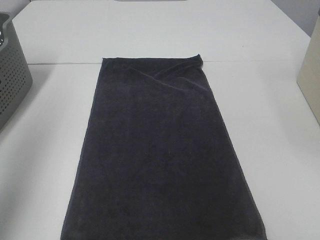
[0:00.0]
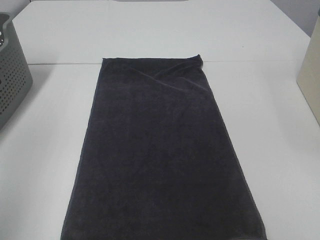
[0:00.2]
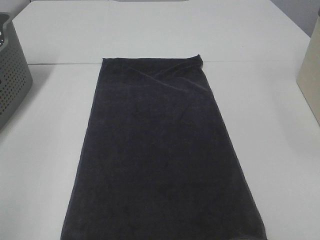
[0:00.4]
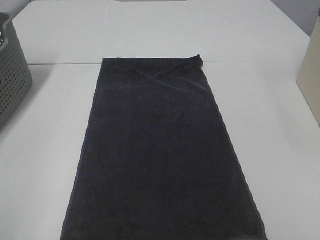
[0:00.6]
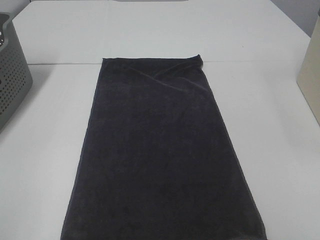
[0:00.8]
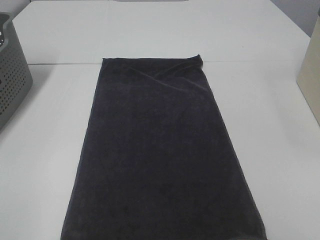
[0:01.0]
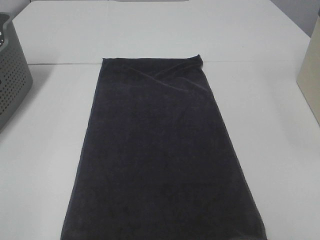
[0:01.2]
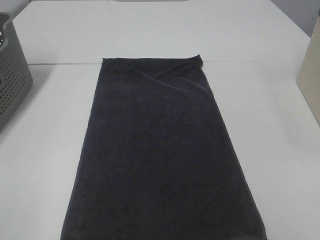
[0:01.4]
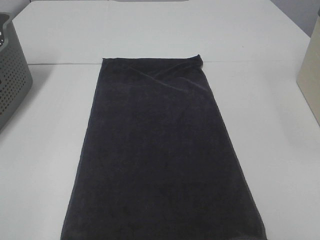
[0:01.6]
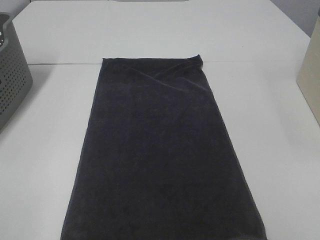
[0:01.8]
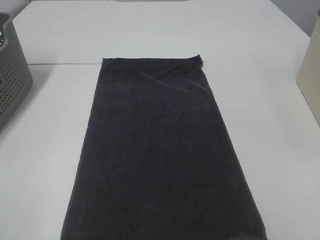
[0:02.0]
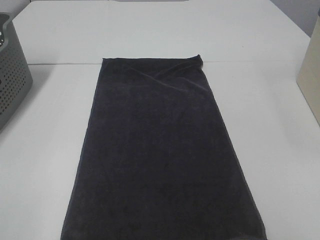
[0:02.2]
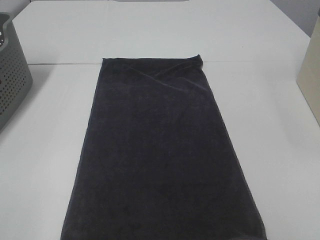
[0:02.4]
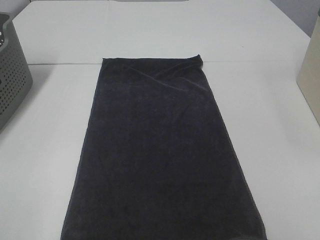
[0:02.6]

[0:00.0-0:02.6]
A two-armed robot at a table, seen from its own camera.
Task of the whole recording: Remove the towel and place it.
0:00.0 to 0:01.2: The left gripper goes approximately 20 cm backward and downward.
0:01.2 to 0:02.6: The two grippers keep their place.

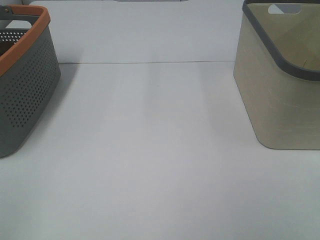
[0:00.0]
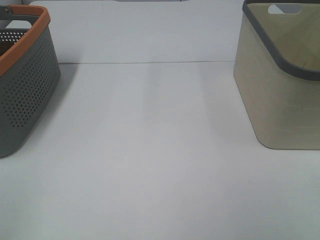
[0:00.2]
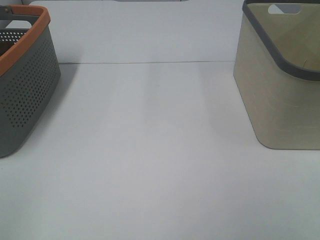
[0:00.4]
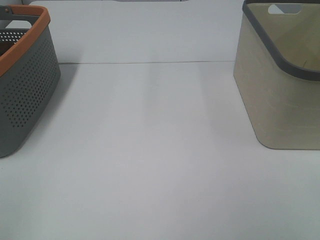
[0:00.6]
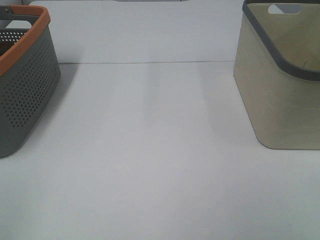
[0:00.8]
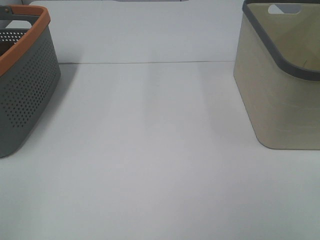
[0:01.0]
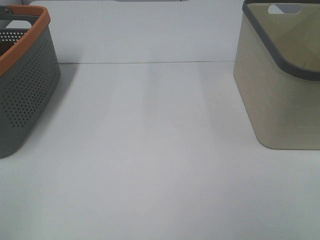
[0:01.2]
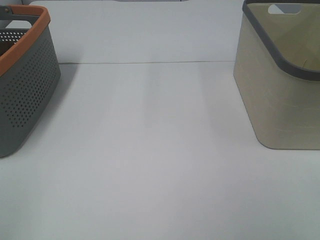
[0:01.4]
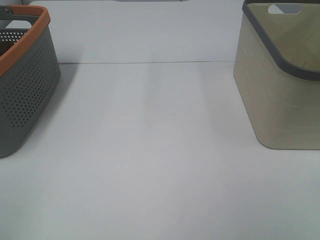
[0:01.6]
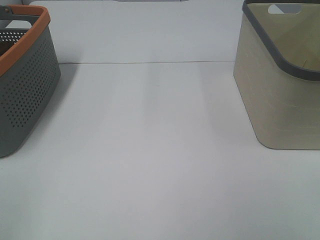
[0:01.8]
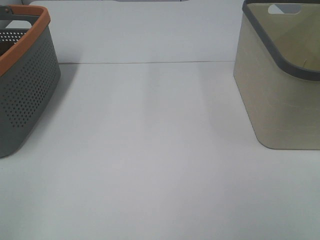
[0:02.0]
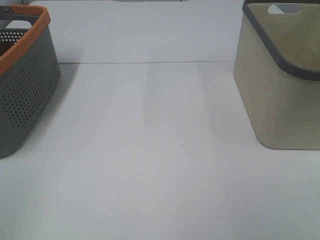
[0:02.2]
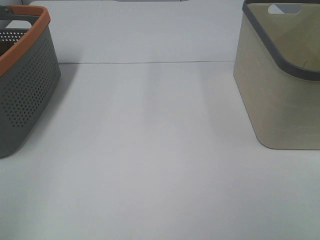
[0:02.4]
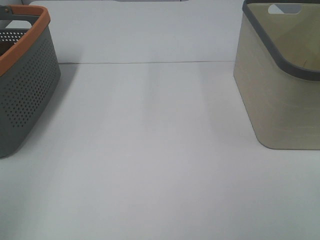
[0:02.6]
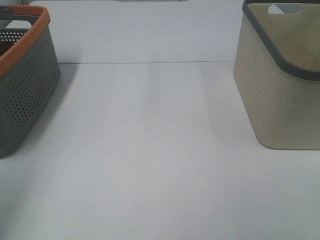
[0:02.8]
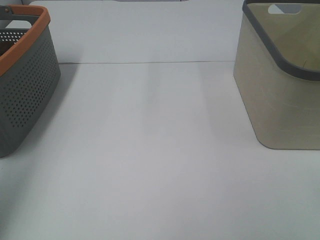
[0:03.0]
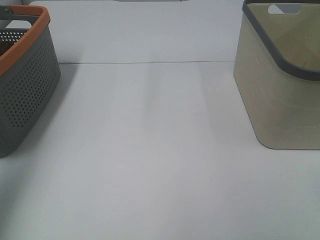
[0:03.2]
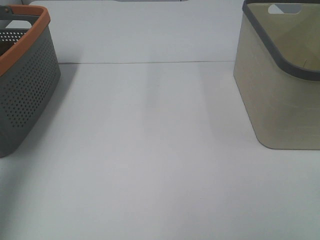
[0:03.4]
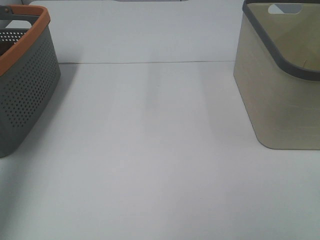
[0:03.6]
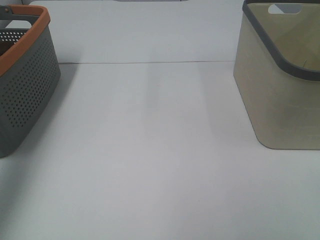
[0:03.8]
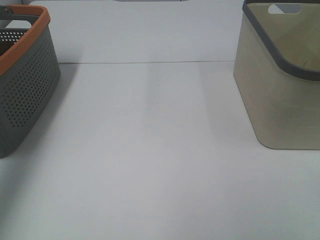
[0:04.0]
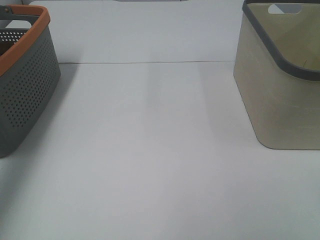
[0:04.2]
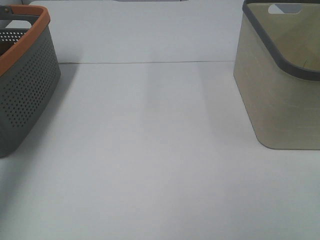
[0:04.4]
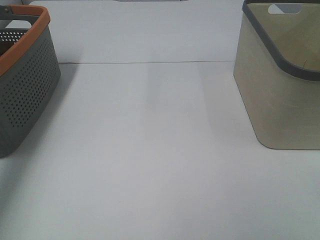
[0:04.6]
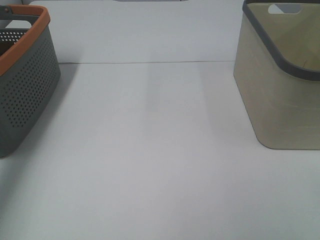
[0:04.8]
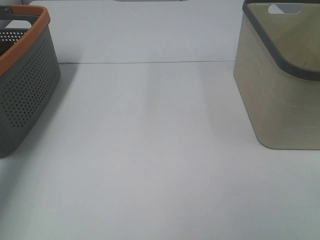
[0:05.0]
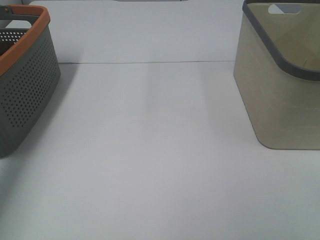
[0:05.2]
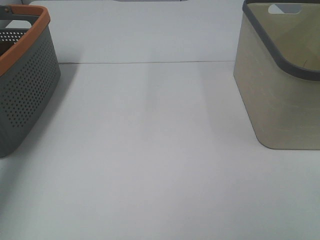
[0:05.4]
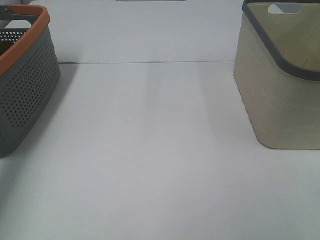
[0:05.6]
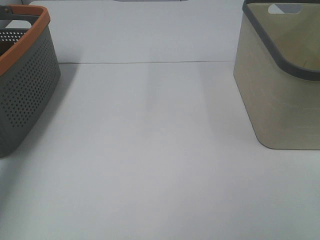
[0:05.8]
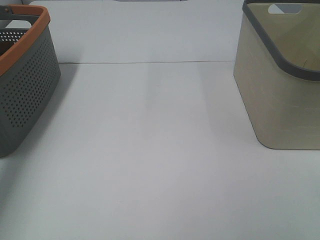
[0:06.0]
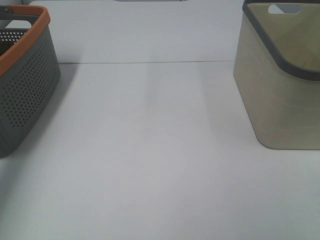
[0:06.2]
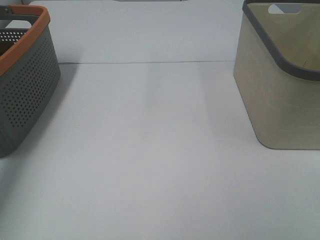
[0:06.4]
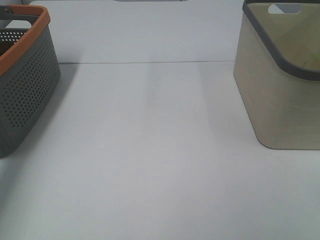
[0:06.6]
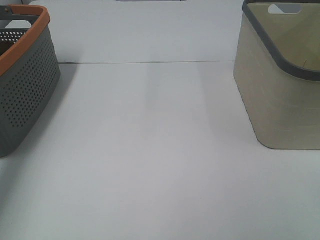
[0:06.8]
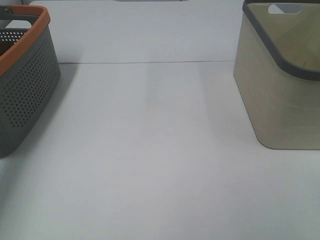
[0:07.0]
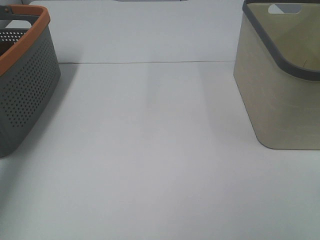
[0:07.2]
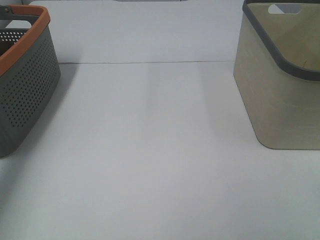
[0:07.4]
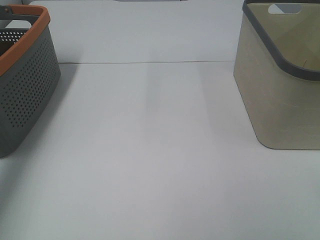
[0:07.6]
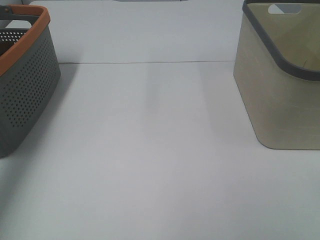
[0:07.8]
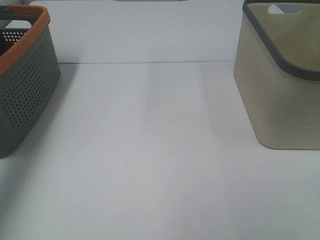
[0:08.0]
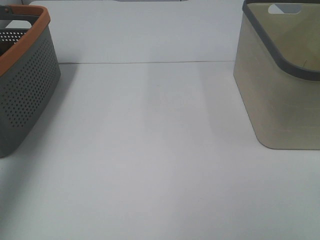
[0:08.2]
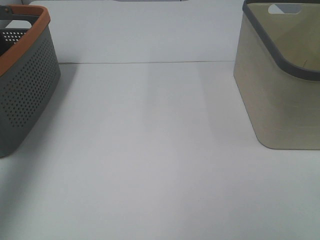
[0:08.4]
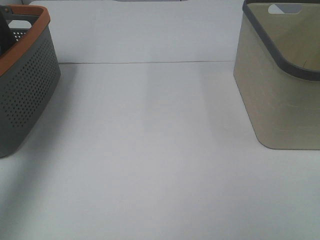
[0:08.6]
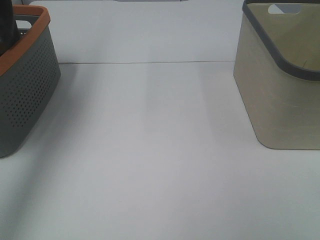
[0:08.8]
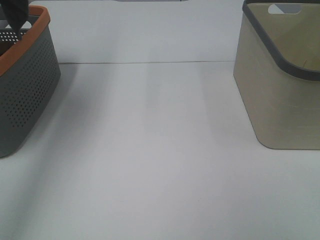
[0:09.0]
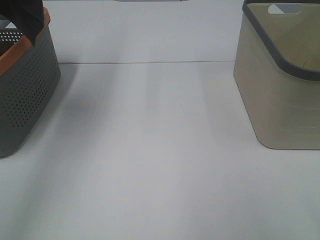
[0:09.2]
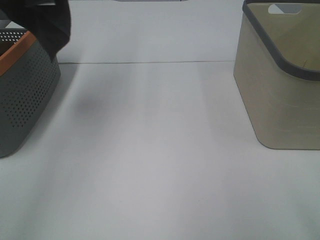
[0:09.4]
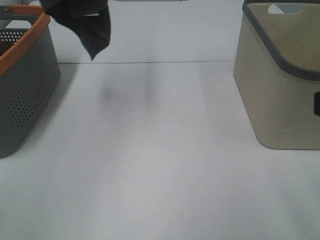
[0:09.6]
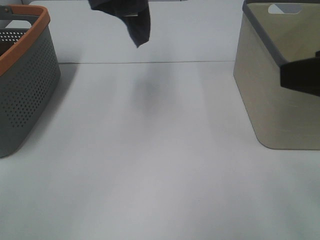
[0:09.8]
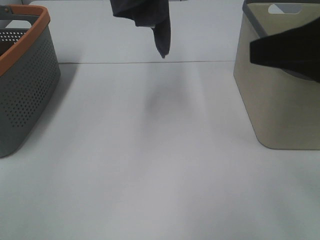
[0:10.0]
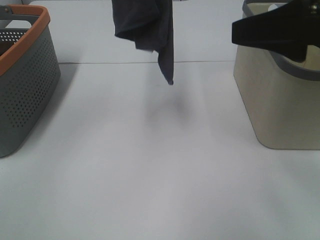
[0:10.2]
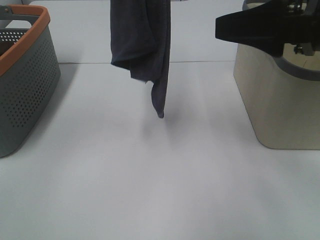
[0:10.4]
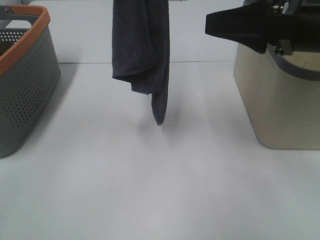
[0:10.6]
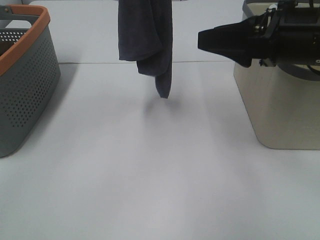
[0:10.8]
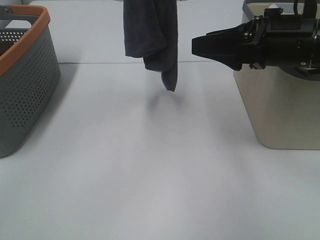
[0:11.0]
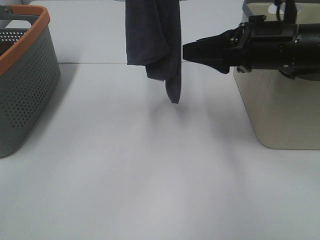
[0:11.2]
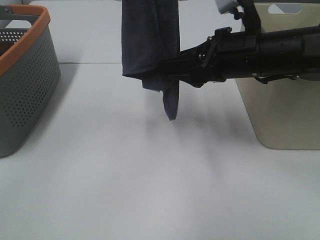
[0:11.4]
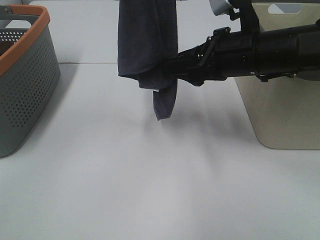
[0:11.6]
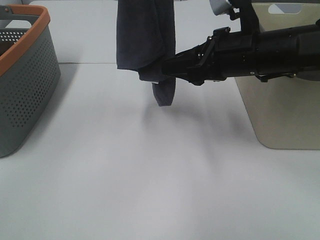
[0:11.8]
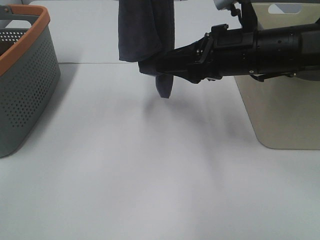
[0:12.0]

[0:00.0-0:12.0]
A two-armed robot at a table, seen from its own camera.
Task of the whole recording: Remove the towel and place it.
0:00.0 to 0:01.6: Neither gripper changes place.
0:01.6 to 0:03.0: The left gripper shifts approximately 20 cm forward and upward.
0:07.6 to 0:09.0: The left gripper moves upward and backward, about 30 cm.
0:09.0 to 0:10.4: The right gripper is displaced forward and to the left by approximately 20 cm. Meanwhile the left gripper goes some 20 cm to the right and downward.
0:10.4 to 0:12.0: The right gripper moves downward, forward and to the left, approximately 15 cm.

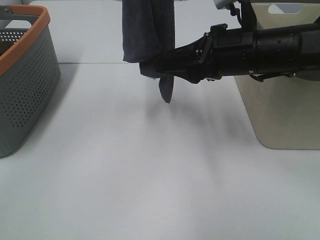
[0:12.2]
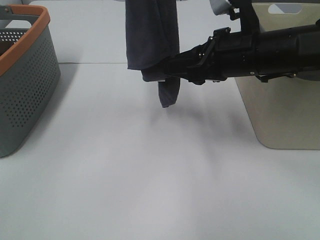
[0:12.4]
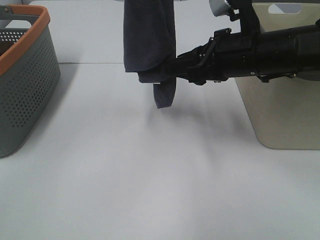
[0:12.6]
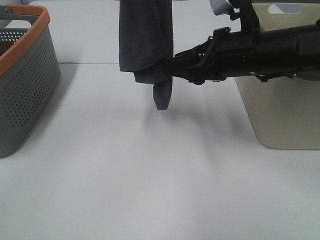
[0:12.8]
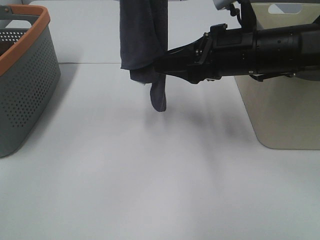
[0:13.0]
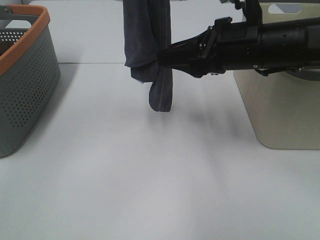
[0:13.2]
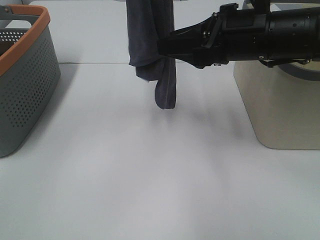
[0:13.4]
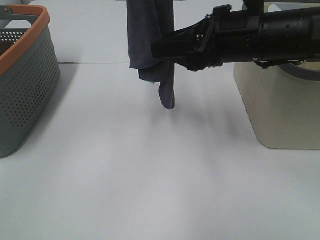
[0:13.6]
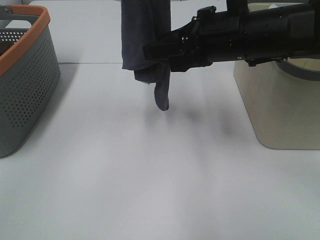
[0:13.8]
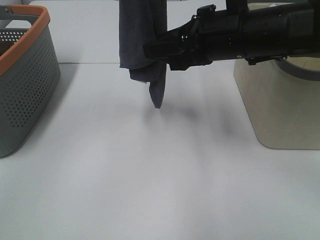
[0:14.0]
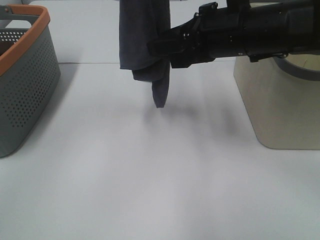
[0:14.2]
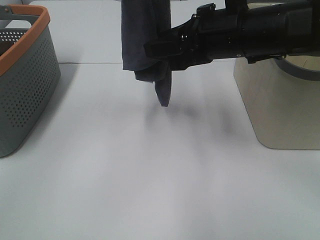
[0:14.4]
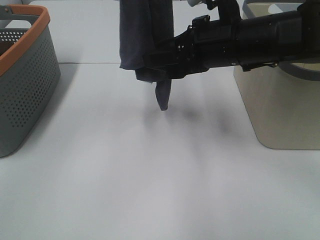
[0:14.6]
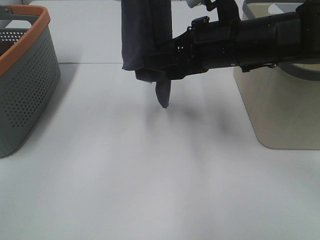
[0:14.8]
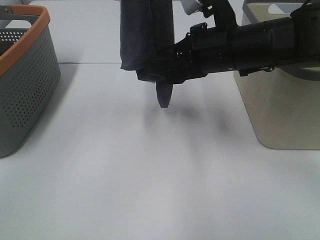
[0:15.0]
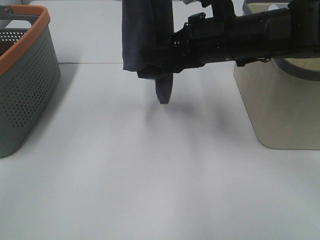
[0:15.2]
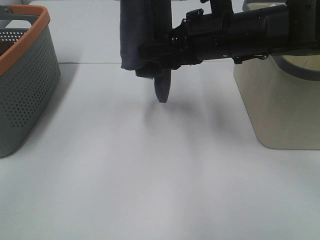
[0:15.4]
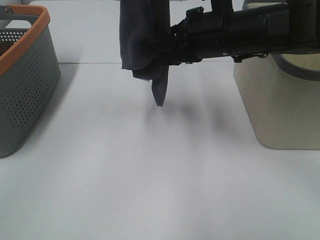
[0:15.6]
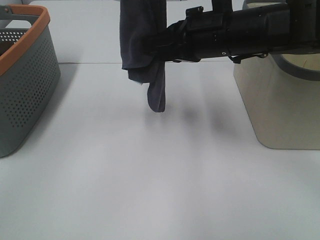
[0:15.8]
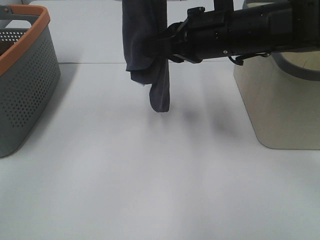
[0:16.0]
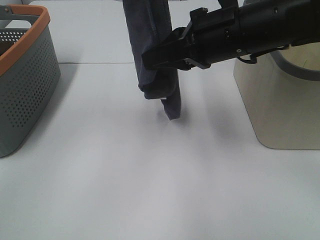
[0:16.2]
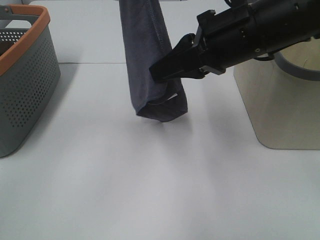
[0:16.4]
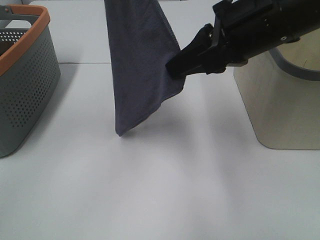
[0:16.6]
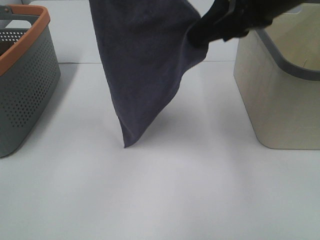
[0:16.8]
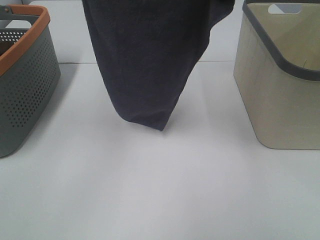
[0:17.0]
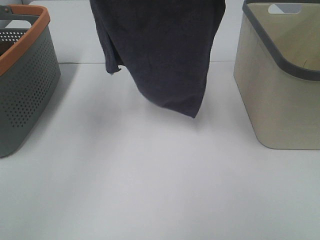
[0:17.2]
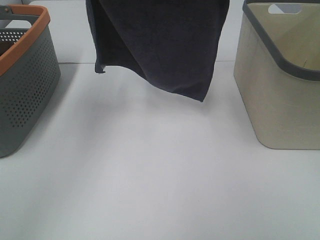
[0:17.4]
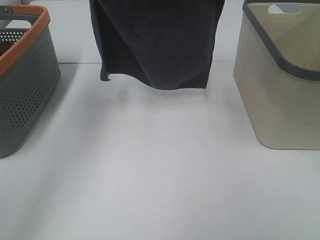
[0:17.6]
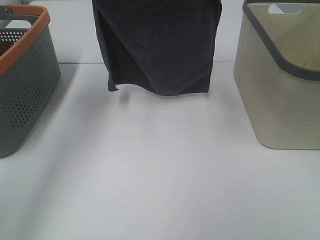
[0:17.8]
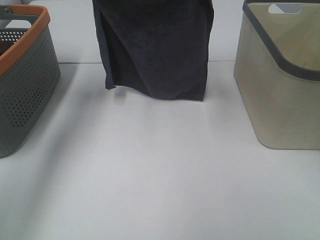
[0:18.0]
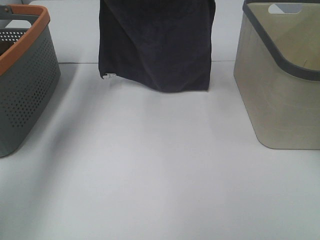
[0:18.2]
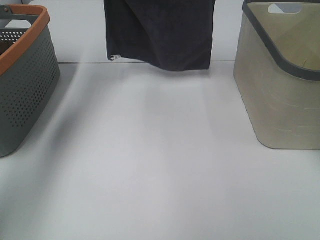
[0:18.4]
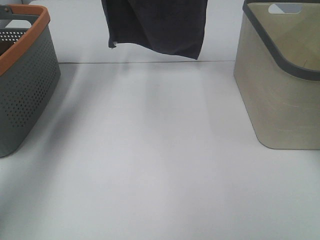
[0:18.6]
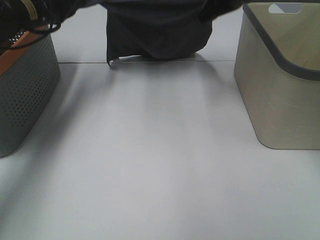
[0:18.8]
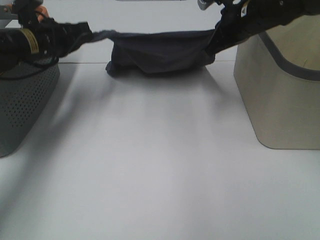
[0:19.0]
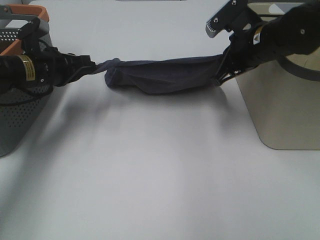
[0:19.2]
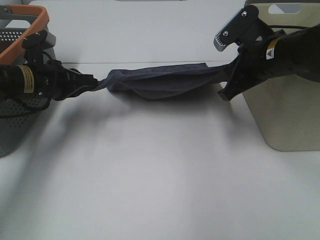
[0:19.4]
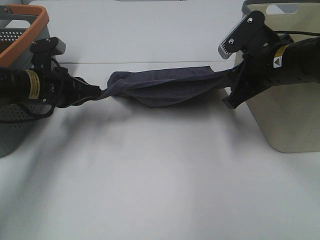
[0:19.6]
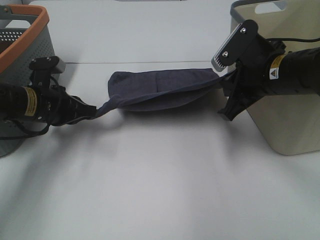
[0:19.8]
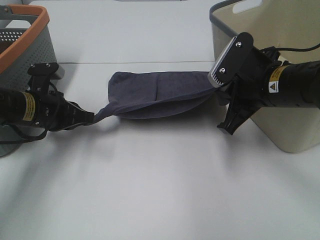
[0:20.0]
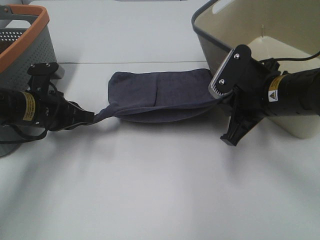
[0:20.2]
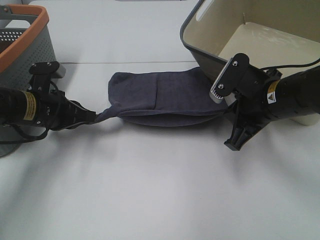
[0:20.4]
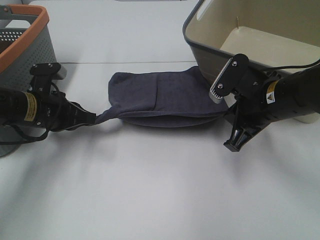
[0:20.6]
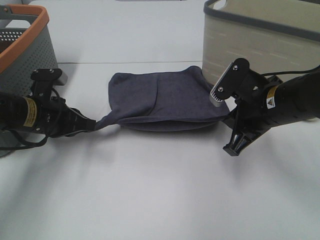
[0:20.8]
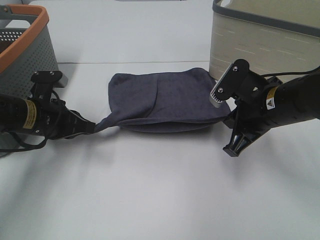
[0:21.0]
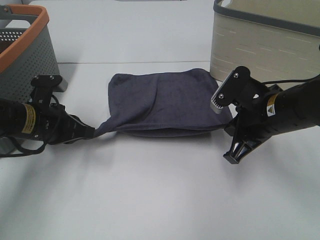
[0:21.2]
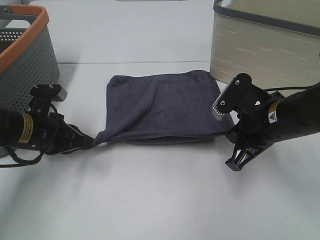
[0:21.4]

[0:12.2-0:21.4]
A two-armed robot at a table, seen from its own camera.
Task of the whole recording: Remove the towel and place it.
Step, 0:12.2 to 0:14.8: Right hand: grab a corner of the grey towel and straighten it.
Step, 0:15.0 to 0:17.6: Left hand: spread the grey towel flat on the table.
Step, 0:15.0 to 0:18.0: Right hand: spread the grey towel flat on the table.
0:12.2 to 0:15.2: There are only small adjustments of the grippers.
0:15.2 to 0:16.8: The right gripper moves upward, some 10 cm, and closes. The left gripper moves to the left, approximately 5 cm.
0:16.8 to 0:18.4: The right gripper goes some 20 cm forward. Meanwhile the left gripper is displaced forward, downward and to the left by some 25 cm.
0:18.4 to 0:19.8: Both grippers move downward and backward, approximately 25 cm.
0:19.8 to 0:21.4: The right gripper changes place by about 5 cm.
